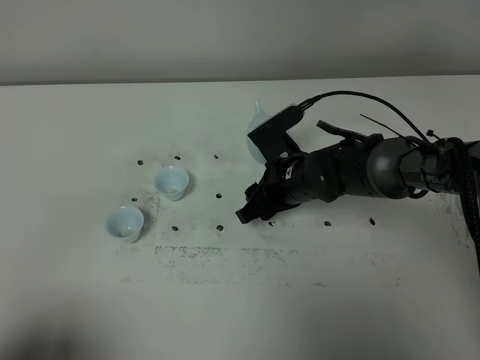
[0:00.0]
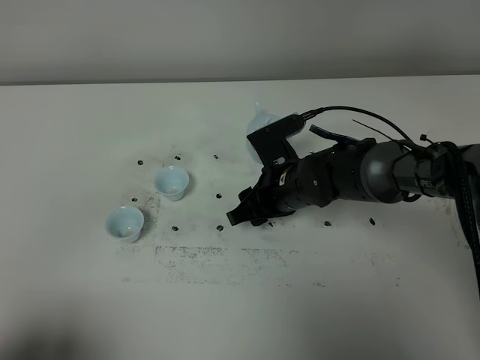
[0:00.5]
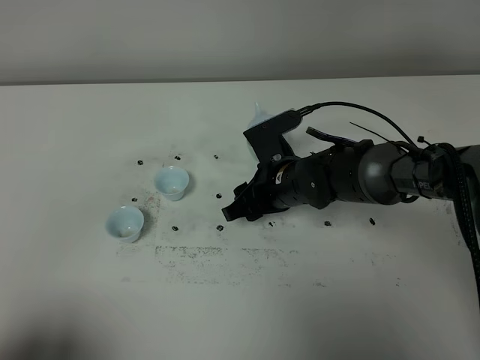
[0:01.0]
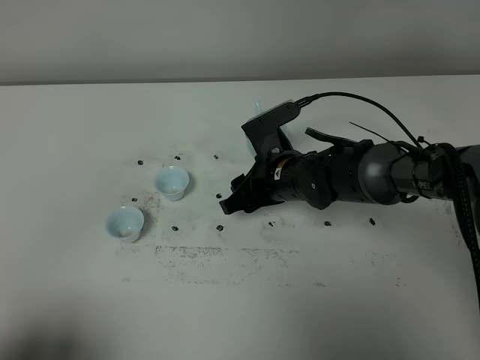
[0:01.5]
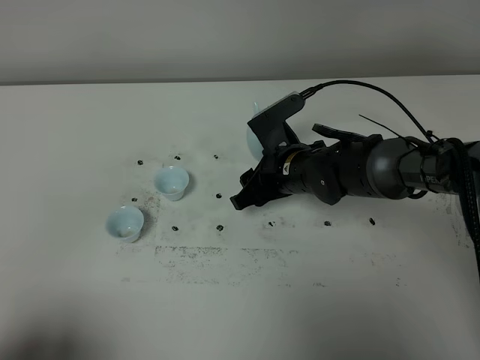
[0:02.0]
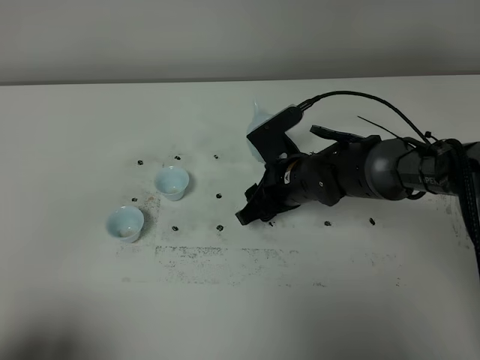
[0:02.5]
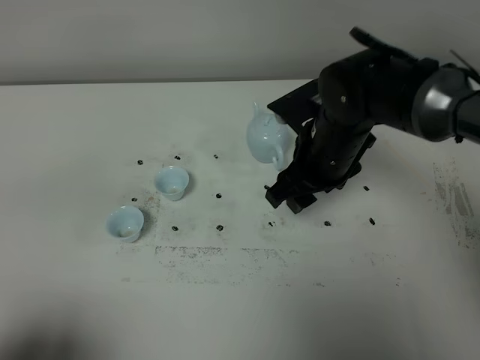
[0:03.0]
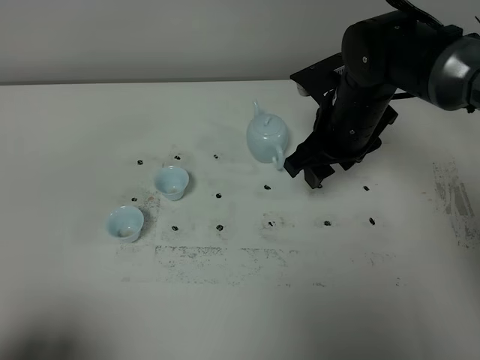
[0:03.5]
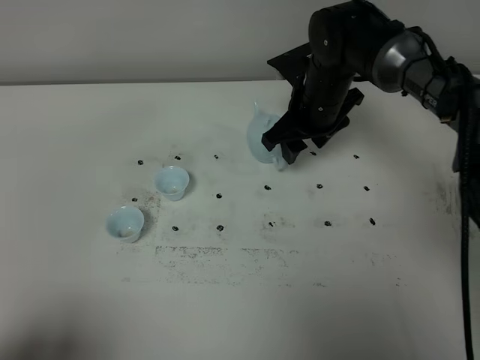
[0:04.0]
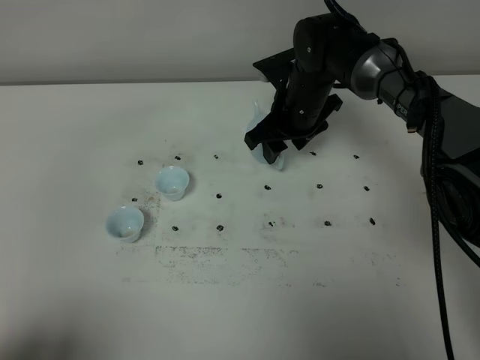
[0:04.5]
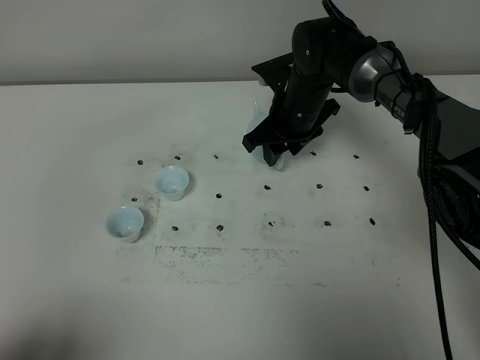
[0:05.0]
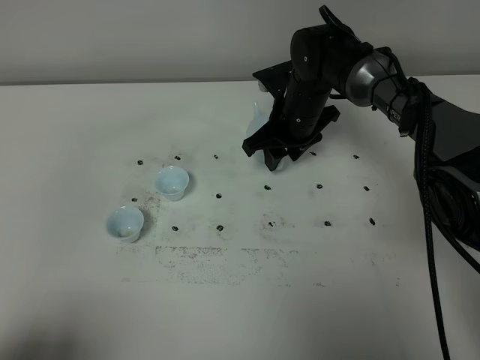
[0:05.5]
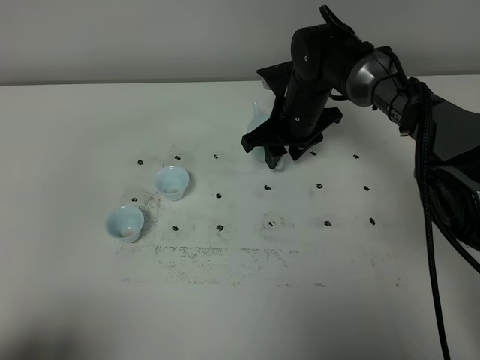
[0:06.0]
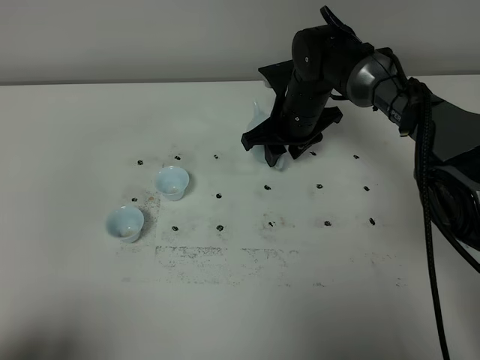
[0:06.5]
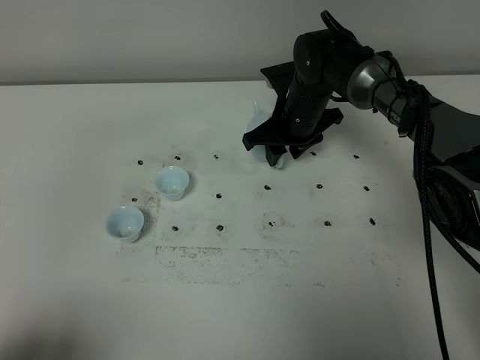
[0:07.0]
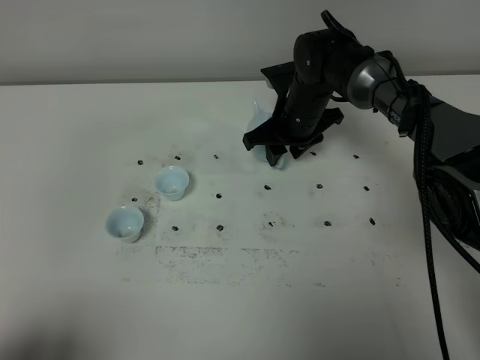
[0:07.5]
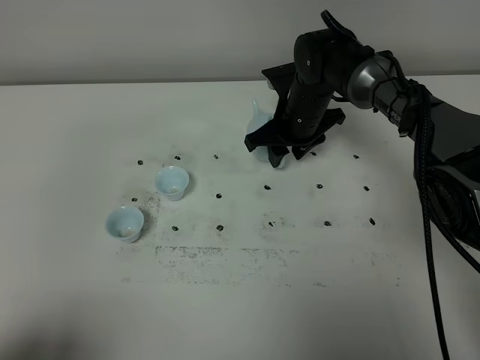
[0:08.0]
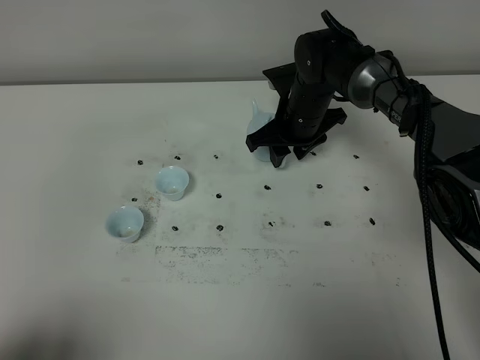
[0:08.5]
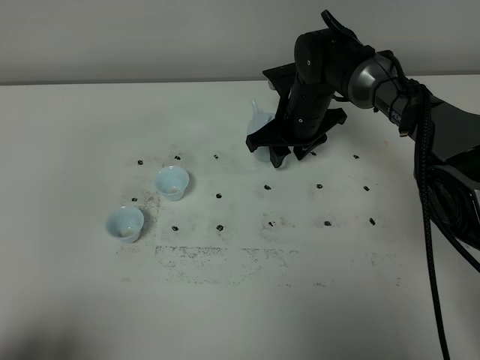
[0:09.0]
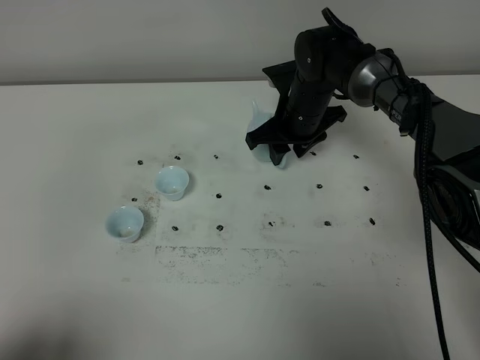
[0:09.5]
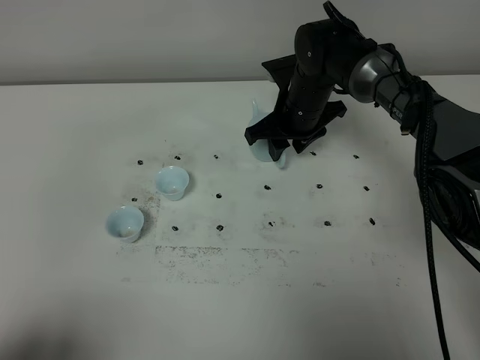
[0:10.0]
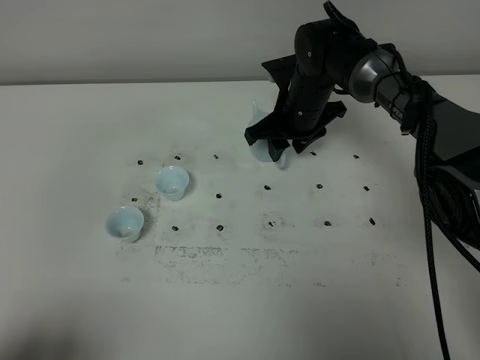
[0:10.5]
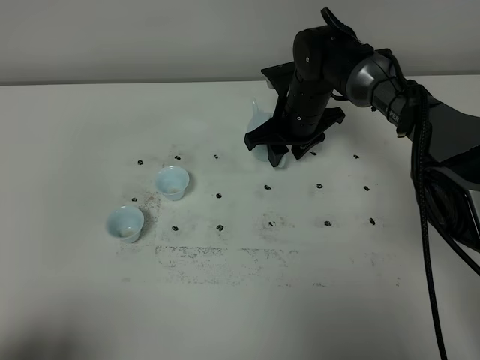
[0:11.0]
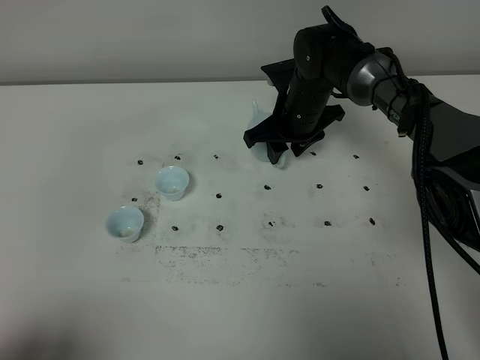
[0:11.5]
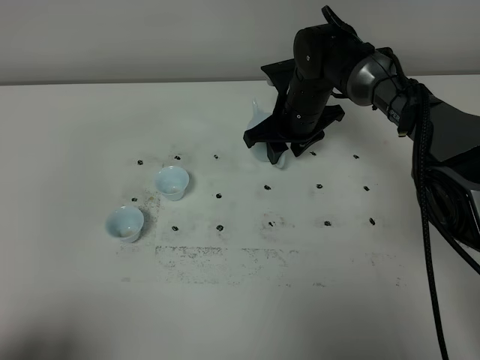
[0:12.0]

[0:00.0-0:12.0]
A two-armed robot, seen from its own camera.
Task of the whole recording: grasp the blue porcelain teapot and pour the tea into the two blue porcelain teacups one by one, put the blue porcelain teapot back in its original place.
0:00.0 to 0:02.0: The grippers make only small movements.
0:02.0 to 0:04.0: The right gripper heads upward and forward, covering roughly 10 cm.
0:04.0 to 0:06.0: The grippers stay close to where they were, moving slightly.
0:06.0 to 0:12.0: Both grippers stay about where they are.

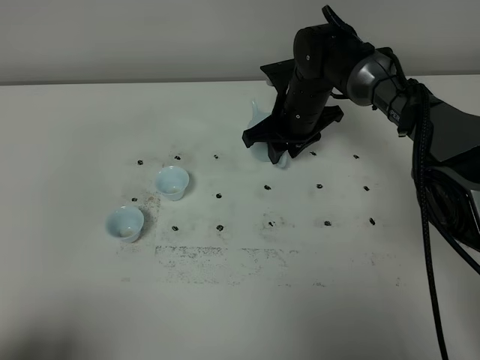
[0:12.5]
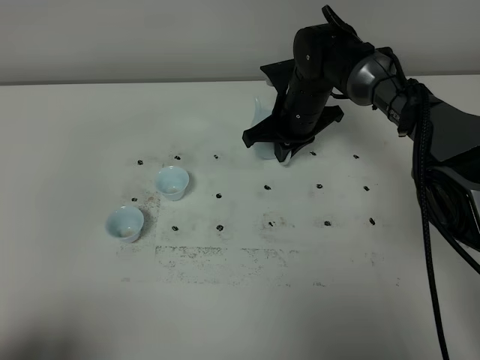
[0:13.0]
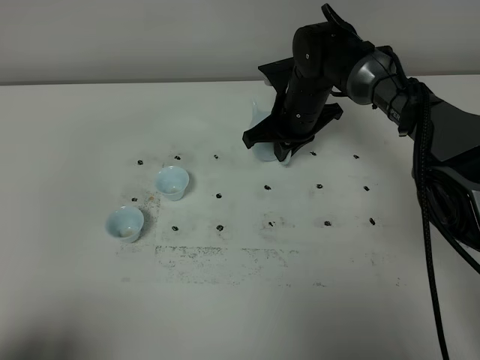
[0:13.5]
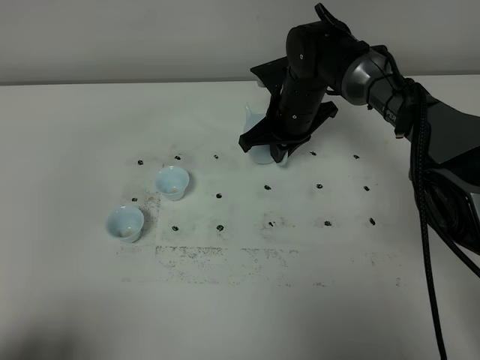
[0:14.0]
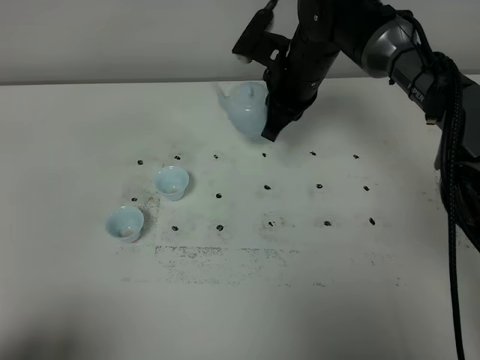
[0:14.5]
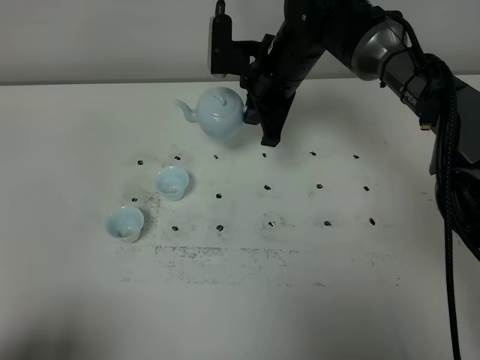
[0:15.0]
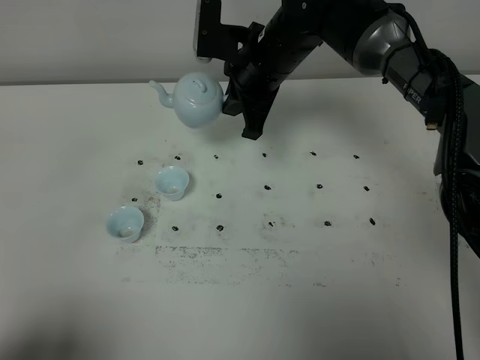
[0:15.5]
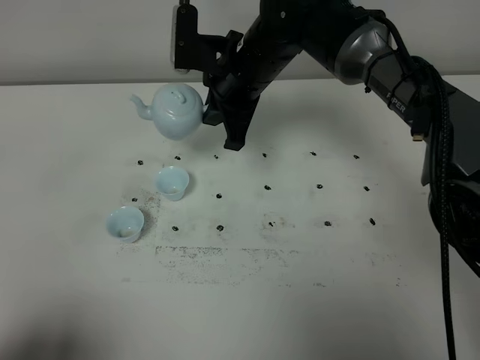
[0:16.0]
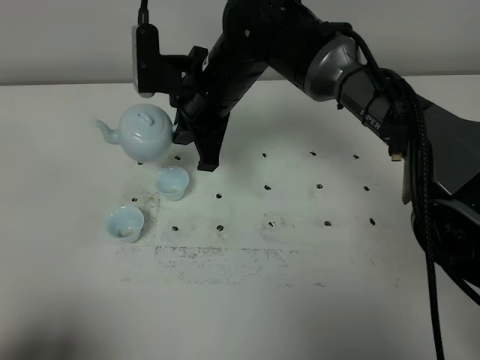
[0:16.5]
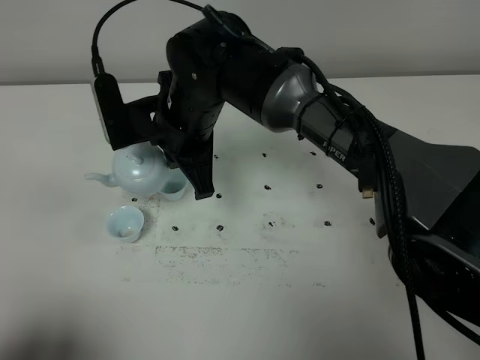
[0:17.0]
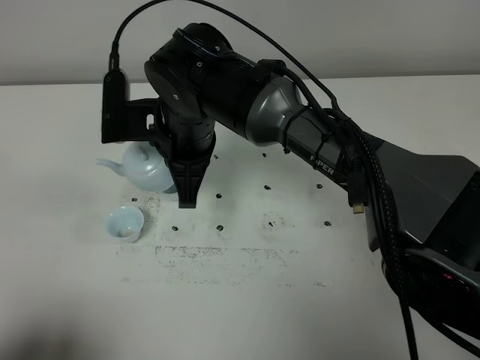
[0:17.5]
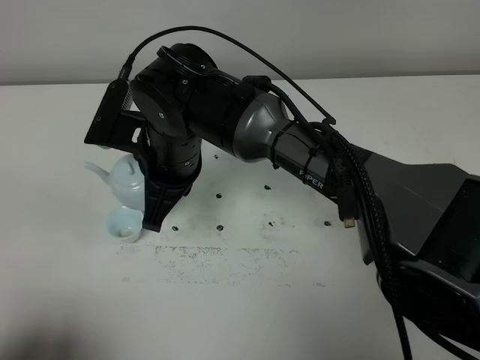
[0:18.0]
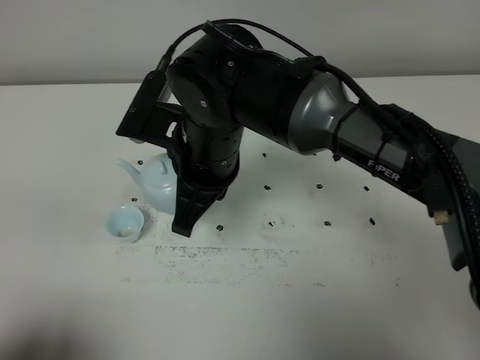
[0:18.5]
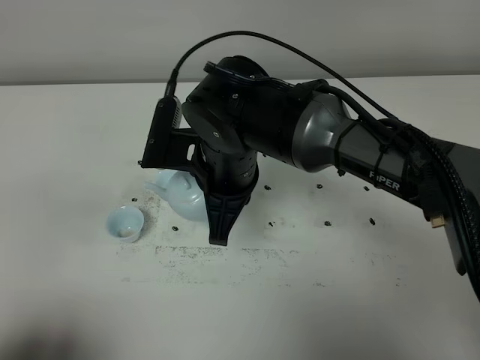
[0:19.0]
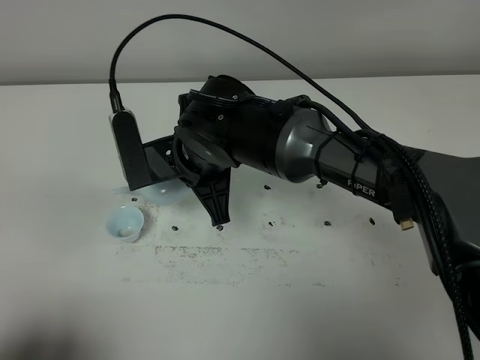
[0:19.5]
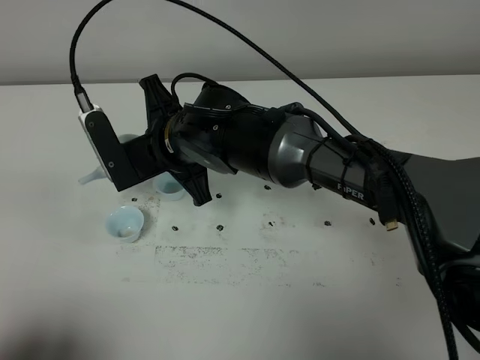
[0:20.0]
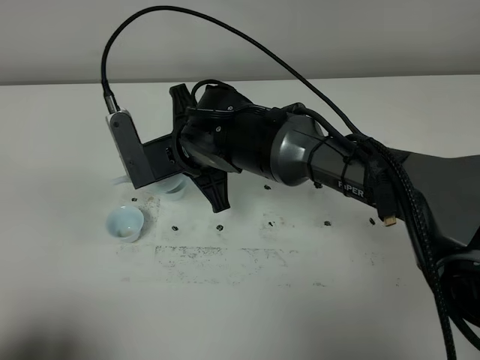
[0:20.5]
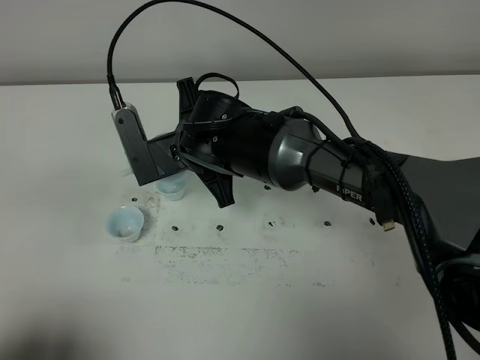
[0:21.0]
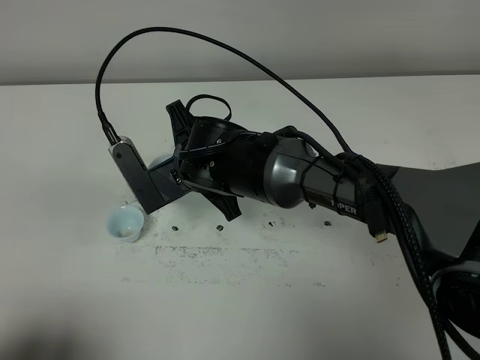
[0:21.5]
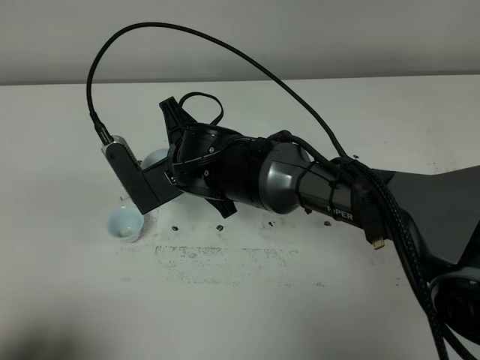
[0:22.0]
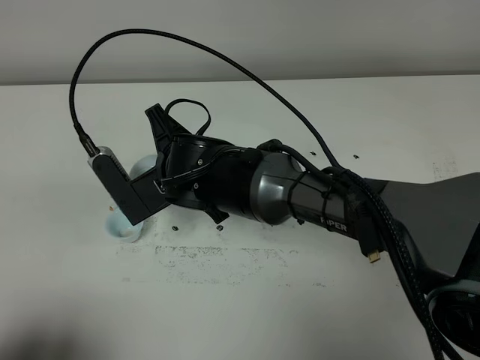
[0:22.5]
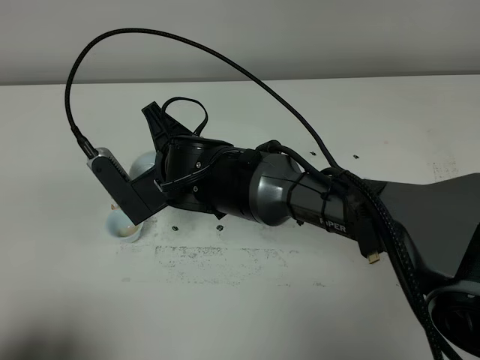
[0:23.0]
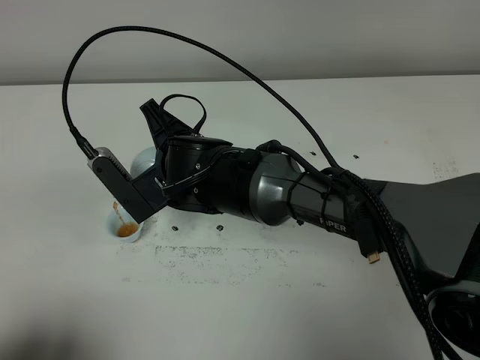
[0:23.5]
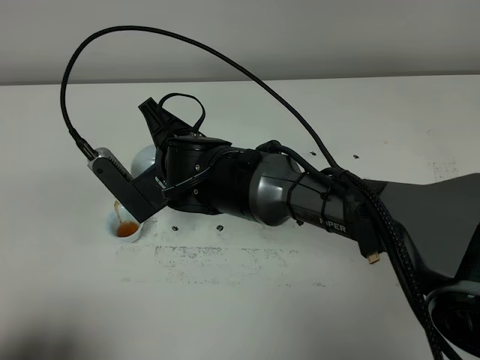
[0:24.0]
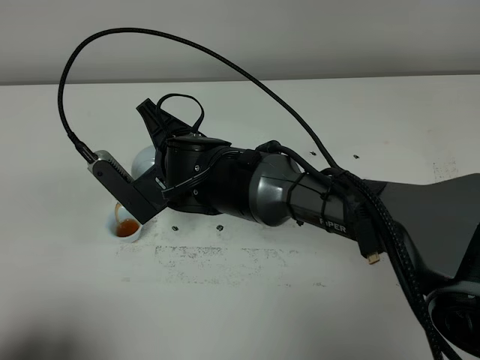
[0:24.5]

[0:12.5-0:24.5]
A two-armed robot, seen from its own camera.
Task of the whole recording: grasp the blue porcelain teapot and pour the tea into the two blue porcelain teacups one by one, put the blue porcelain teapot back in its original place.
0:12.5 to 0:14.5: The right gripper is displaced upward by about 5 cm, and closes its fingers.
0:14.5 to 0:16.5: The right gripper is displaced to the left and backward by about 10 cm.
0:16.5 to 0:18.5: The right gripper travels backward by approximately 10 cm.
0:18.5 to 0:20.5: The right gripper travels downward by some 5 cm.
0:22.5 to 0:24.5: The grippers make only small movements.

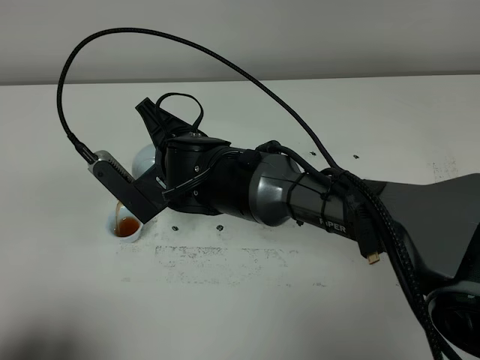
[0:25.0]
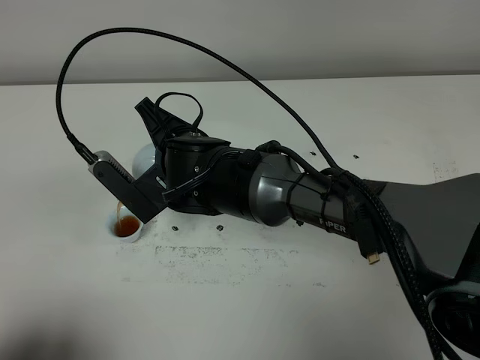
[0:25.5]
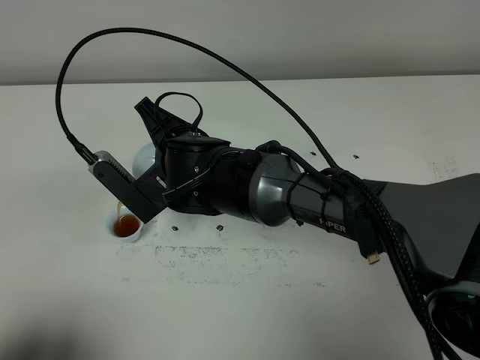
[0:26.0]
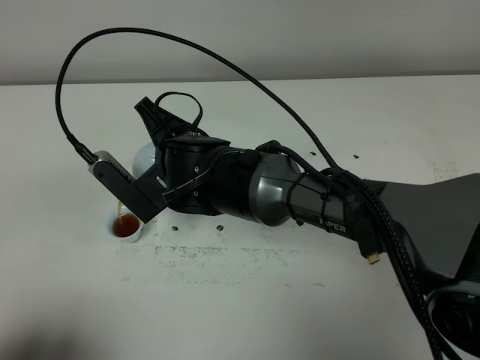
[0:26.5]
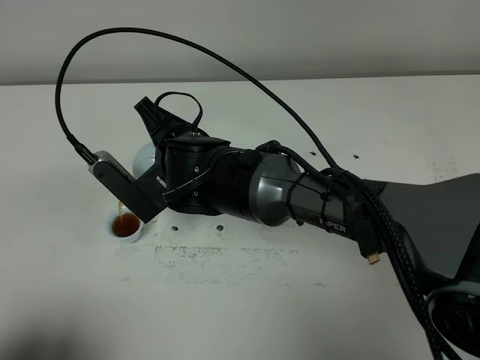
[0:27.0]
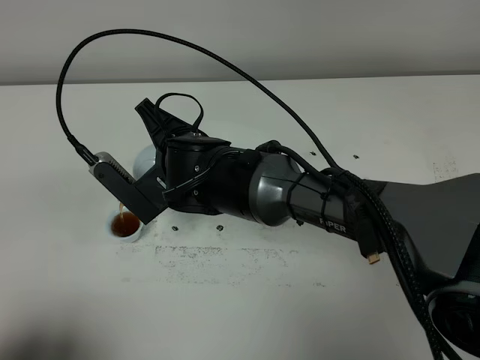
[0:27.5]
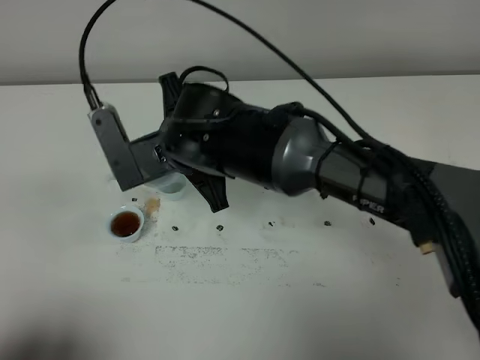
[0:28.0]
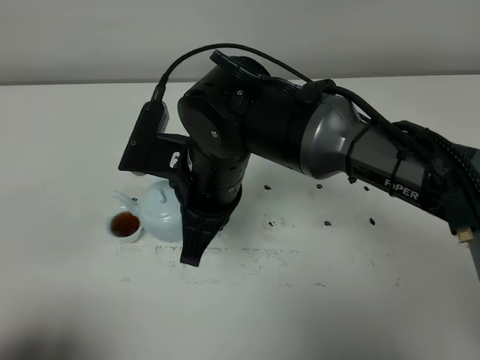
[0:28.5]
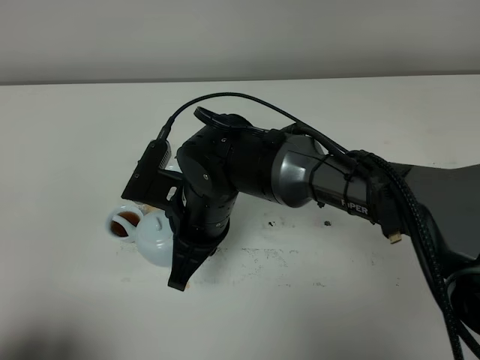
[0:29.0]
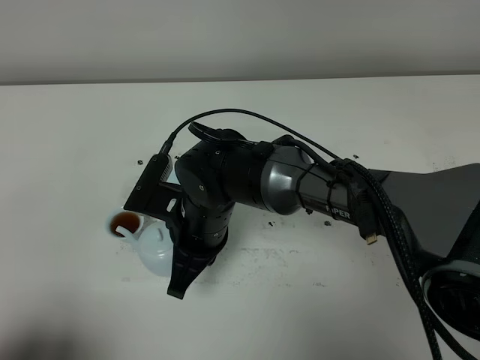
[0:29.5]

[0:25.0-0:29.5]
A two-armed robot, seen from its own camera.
Task of the whole recording: grasp the blue porcelain teapot and pour the tea into the two blue porcelain teacups one by one, put the blue porcelain teapot back in its original place.
0:25.0 to 0:27.0: Neither gripper changes place.
0:27.0 to 0:29.5: The right gripper shifts by roughly 5 cm.
